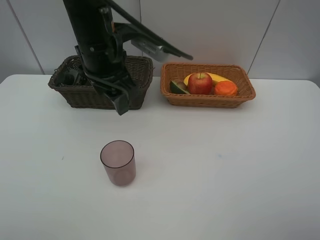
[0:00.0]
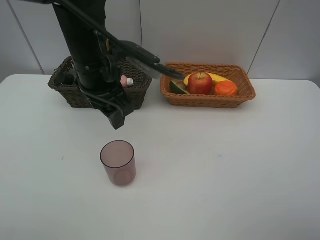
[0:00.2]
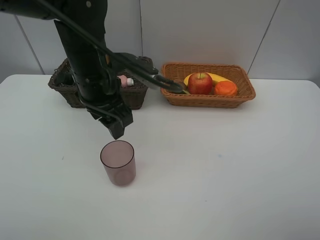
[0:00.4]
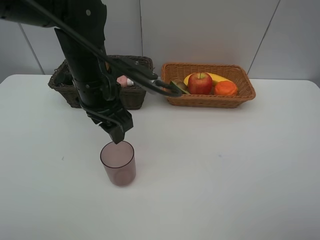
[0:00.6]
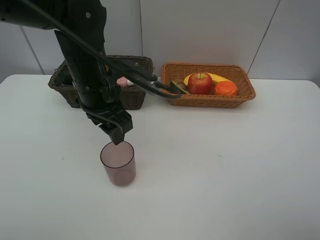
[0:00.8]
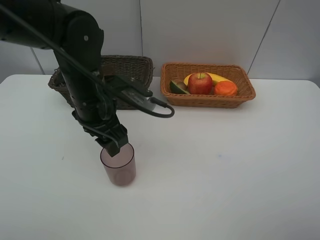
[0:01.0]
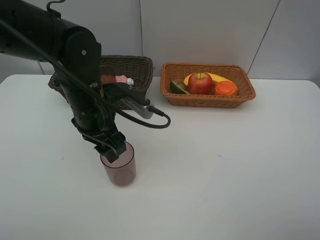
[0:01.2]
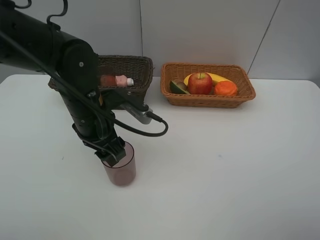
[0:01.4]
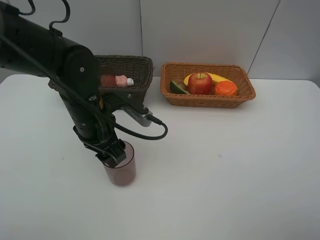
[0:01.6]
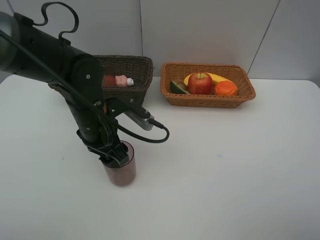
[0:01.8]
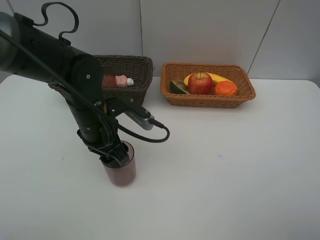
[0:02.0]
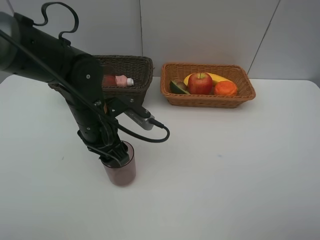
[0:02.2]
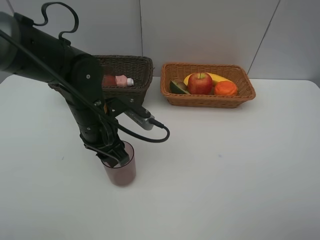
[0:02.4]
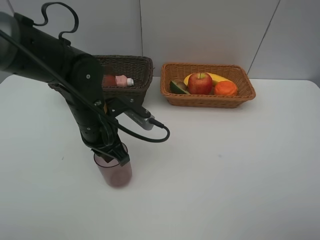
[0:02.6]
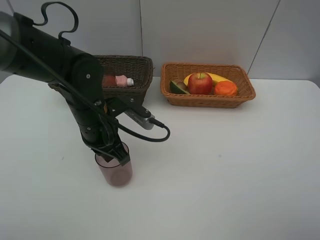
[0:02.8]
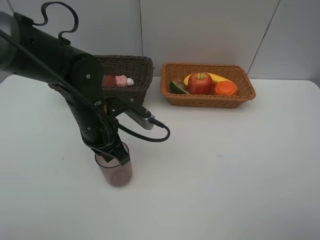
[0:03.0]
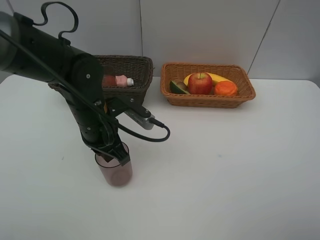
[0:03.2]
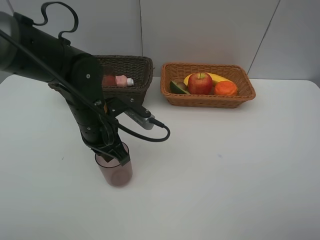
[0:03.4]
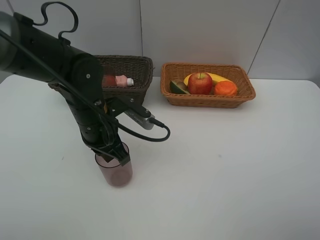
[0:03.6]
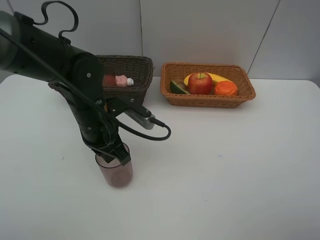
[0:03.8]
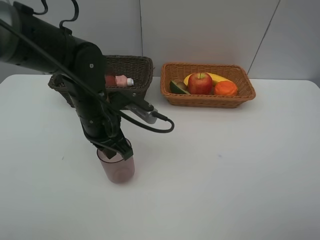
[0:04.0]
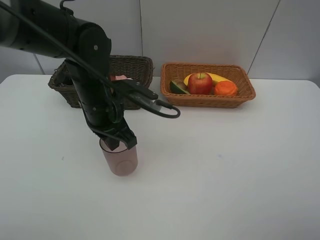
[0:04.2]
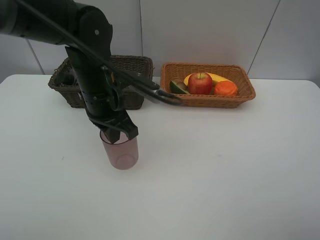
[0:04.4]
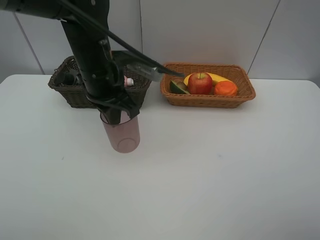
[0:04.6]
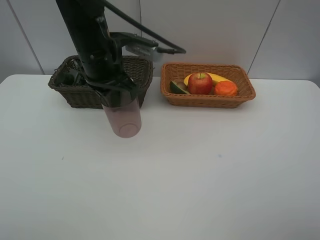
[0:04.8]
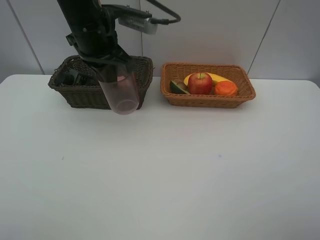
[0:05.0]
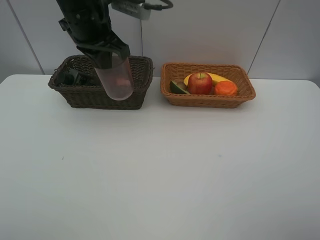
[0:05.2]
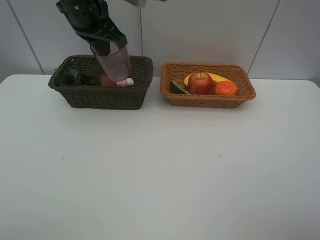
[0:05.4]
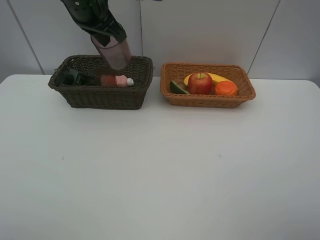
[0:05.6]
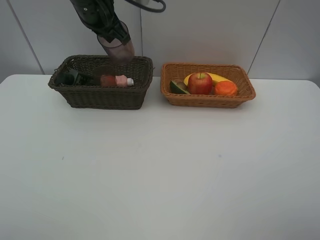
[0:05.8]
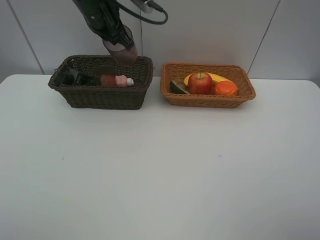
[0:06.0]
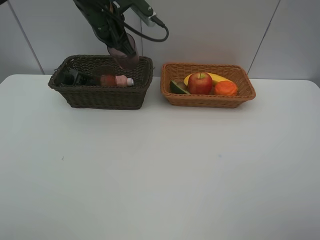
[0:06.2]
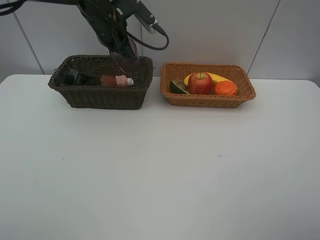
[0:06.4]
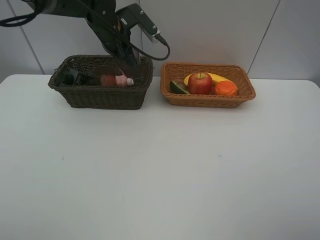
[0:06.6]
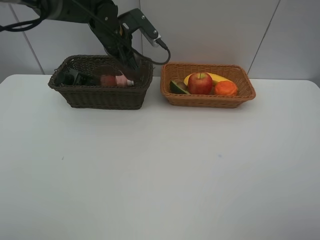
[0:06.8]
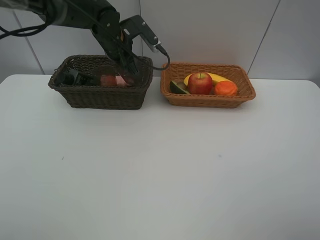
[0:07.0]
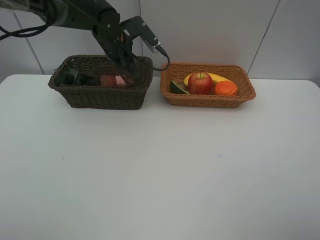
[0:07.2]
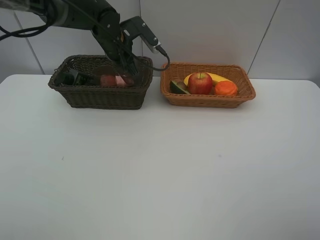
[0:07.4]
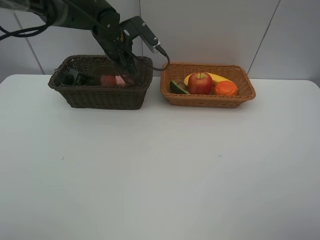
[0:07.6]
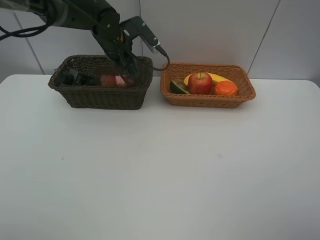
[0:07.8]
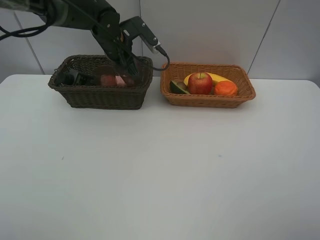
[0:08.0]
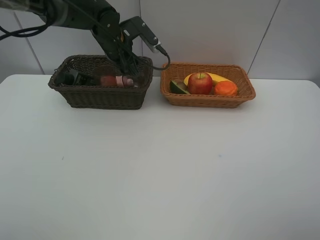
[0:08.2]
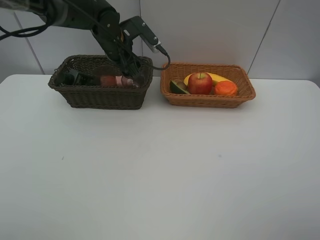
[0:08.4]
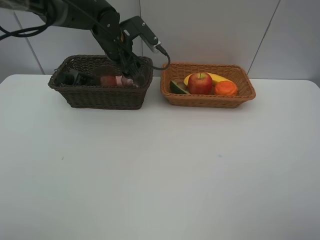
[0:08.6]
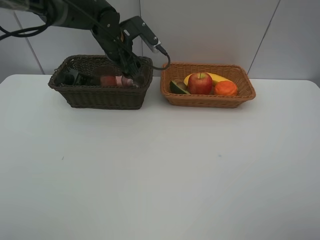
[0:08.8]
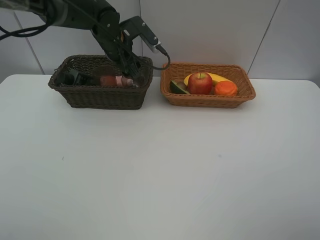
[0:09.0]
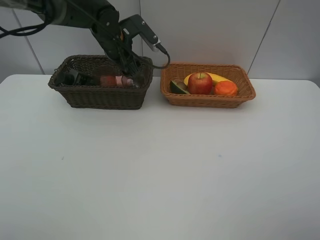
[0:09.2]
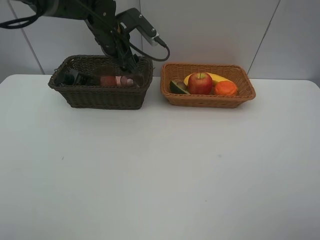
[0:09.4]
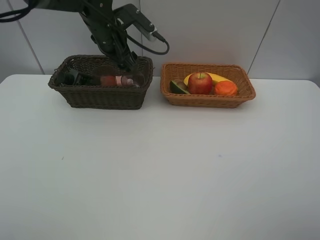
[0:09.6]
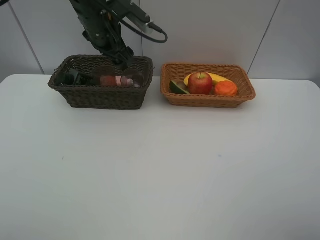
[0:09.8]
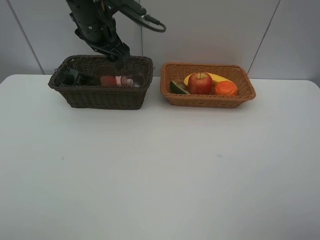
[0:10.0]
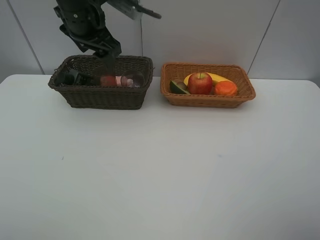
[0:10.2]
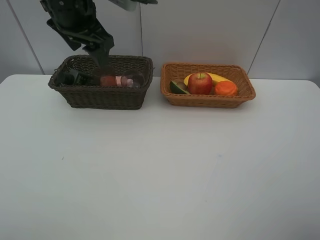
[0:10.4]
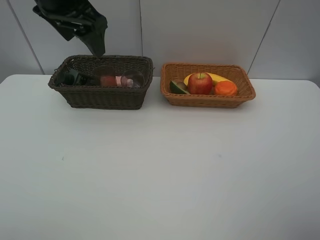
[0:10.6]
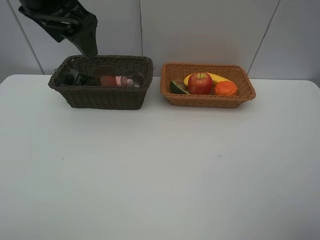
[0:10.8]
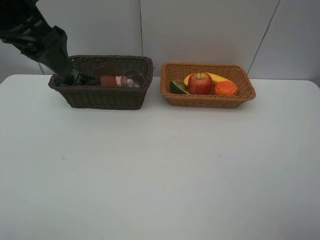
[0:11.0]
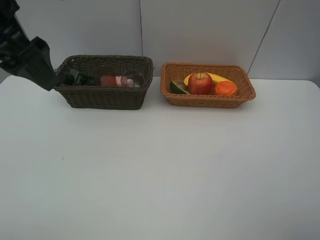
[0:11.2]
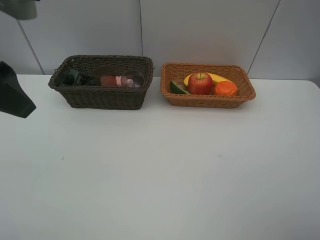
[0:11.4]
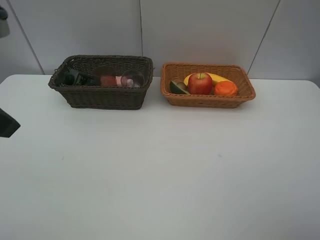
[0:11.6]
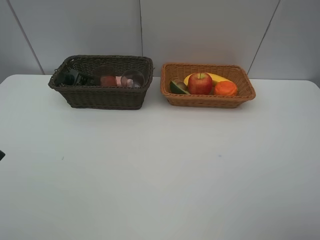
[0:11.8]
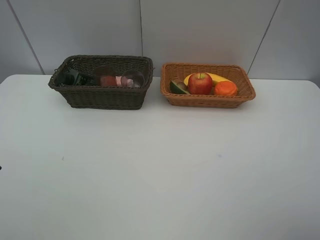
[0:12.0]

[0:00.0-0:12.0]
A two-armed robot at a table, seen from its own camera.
Task of the whole recording: Place multiple objects separately in different baskets.
Step, 0:00.0 to 0:04.0: Pick up the red cup with left gripper.
Step, 0:04.2 to 0:09.8: Place the red cup in the dark basket with left gripper.
0:00.0 to 0:01.6: The left gripper goes about 10 cm downward.
0:01.6 to 0:03.0: The left gripper closes up.
0:03.0 to 0:04.4: The left gripper shifts approximately 5 cm upward.
0:04.4 to 0:06.0: The left gripper travels forward and upward by about 15 cm.
0:06.0 to 0:07.6: The left gripper is displaced downward by about 10 cm.
0:09.0 to 0:10.4: The left gripper travels upward and backward by about 15 cm.
0:10.4 to 0:12.0: The left gripper travels backward and to the left by roughly 30 cm.

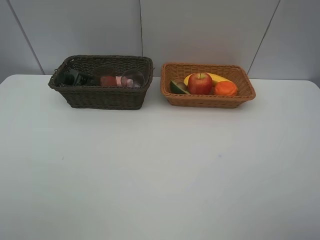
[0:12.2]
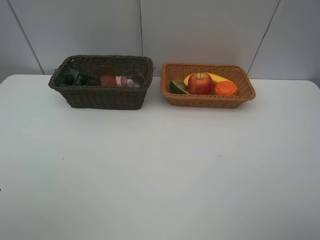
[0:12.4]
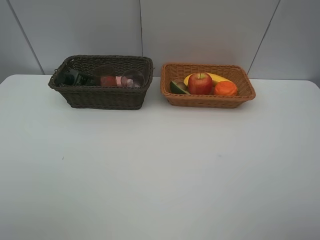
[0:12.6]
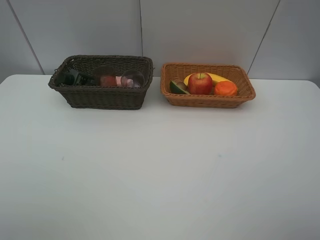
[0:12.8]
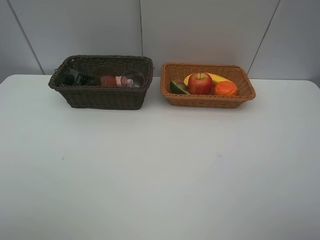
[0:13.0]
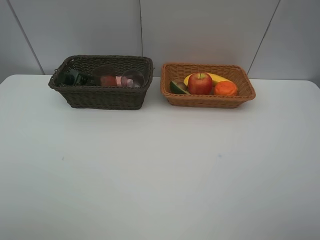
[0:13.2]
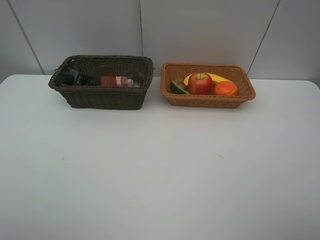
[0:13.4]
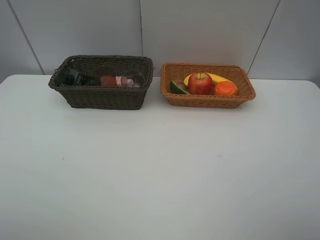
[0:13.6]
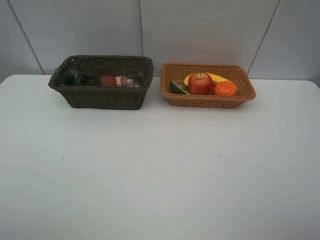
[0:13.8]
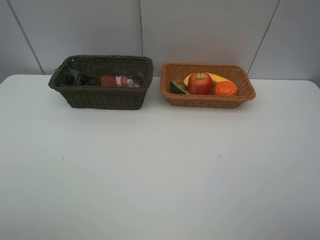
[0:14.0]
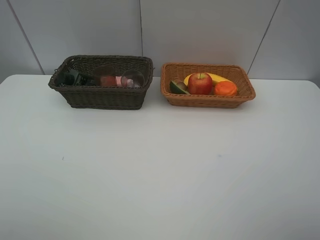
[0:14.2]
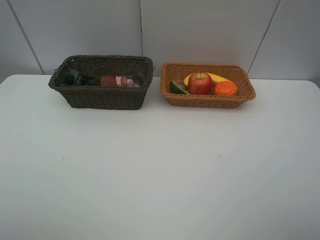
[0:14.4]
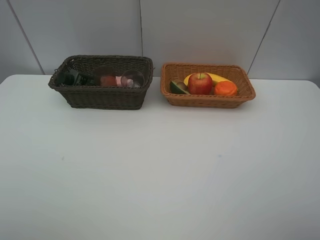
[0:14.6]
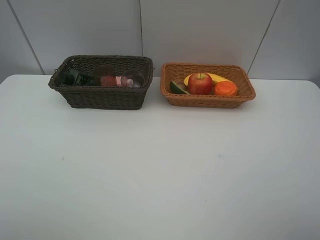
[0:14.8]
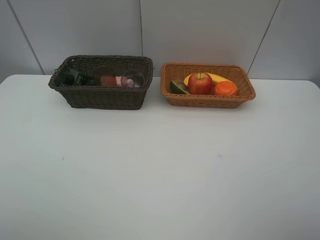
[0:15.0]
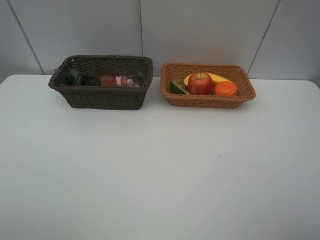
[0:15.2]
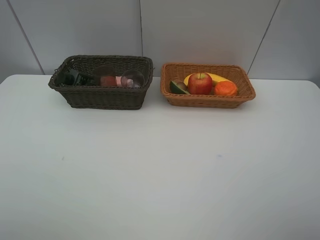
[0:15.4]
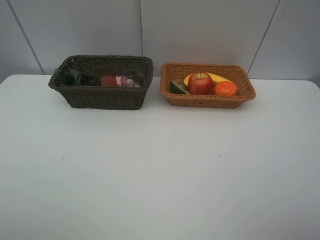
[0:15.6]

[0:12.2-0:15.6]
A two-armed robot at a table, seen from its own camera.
Task of the whole recording: Place multiple objects separately in different baskets.
0:13.8 to 0:15.6: The two grippers keep their place.
